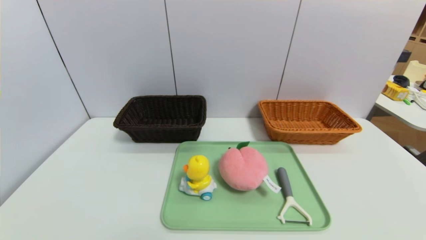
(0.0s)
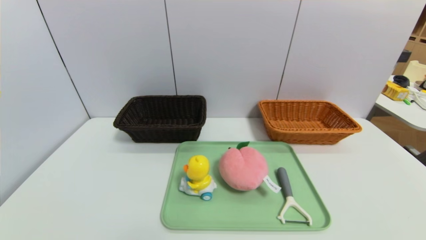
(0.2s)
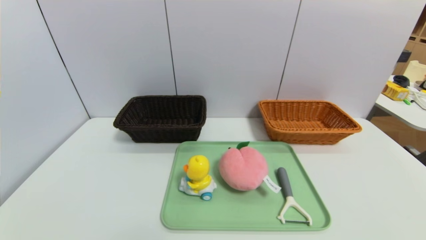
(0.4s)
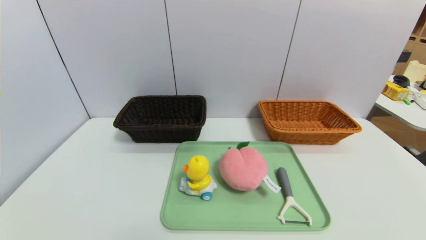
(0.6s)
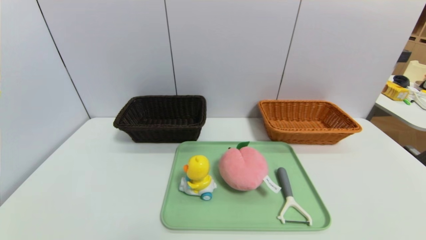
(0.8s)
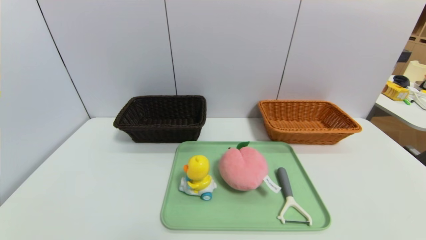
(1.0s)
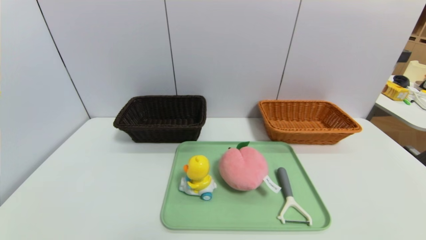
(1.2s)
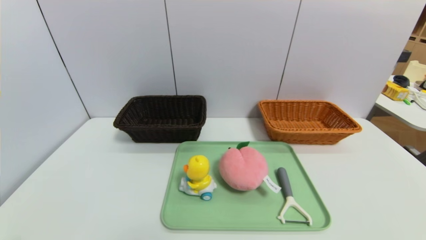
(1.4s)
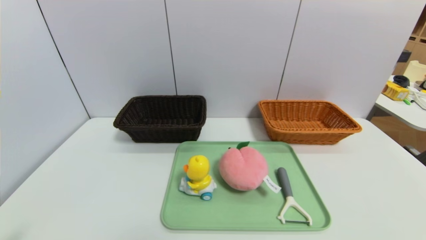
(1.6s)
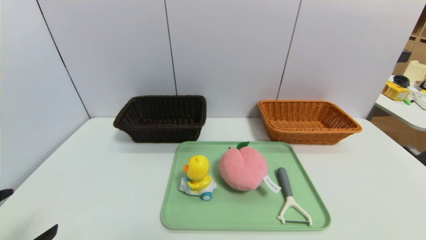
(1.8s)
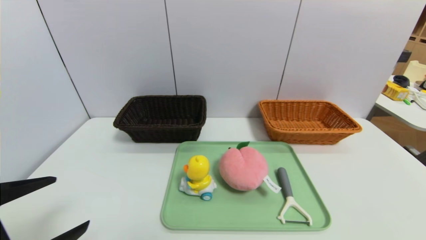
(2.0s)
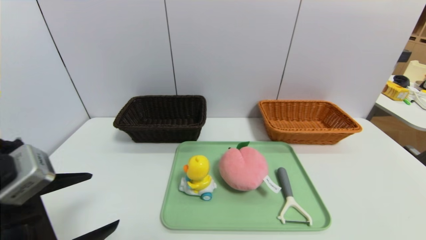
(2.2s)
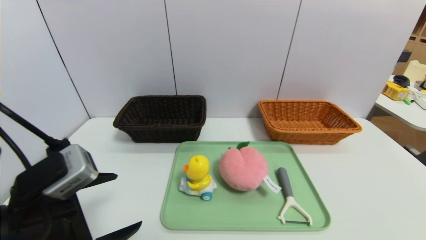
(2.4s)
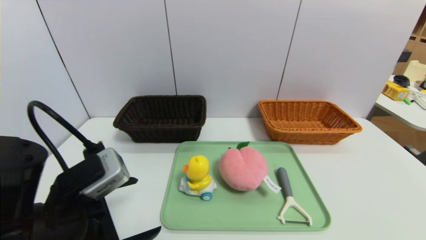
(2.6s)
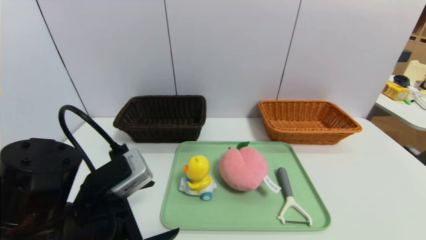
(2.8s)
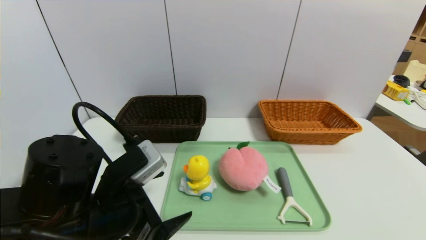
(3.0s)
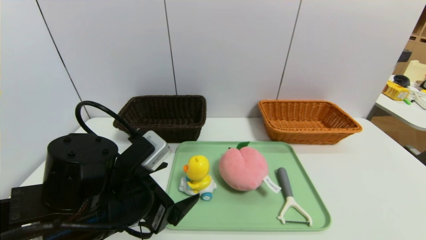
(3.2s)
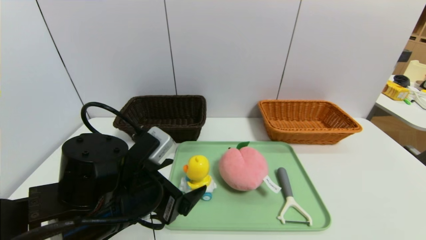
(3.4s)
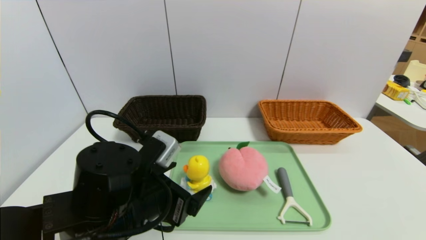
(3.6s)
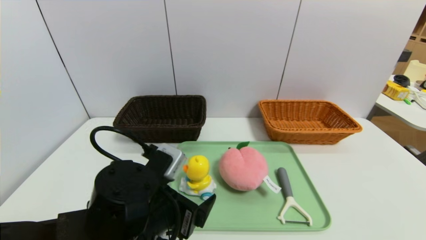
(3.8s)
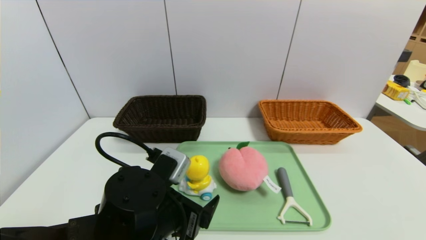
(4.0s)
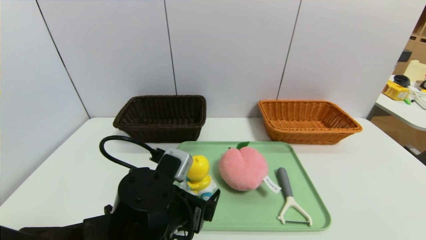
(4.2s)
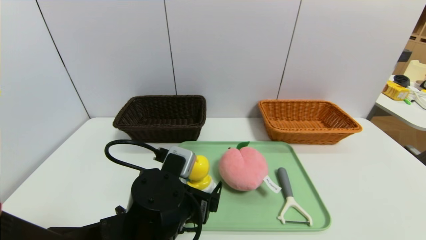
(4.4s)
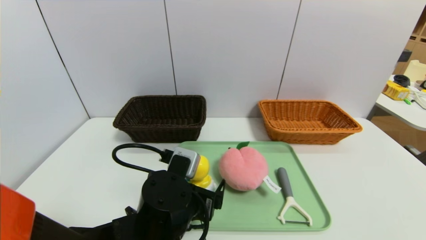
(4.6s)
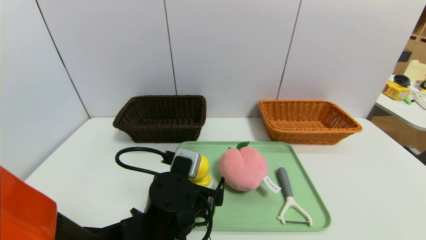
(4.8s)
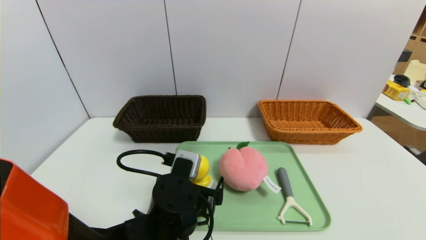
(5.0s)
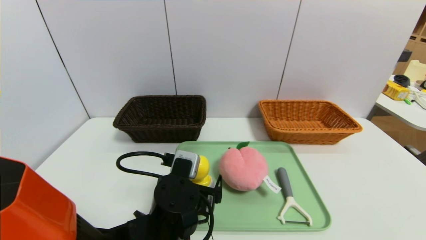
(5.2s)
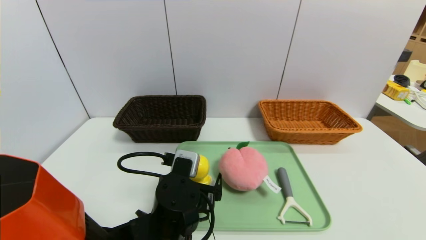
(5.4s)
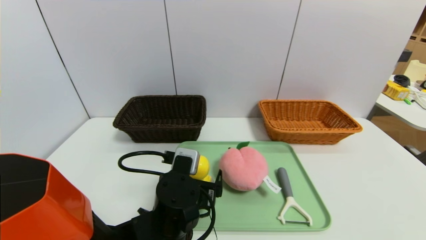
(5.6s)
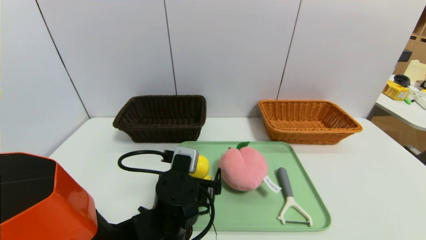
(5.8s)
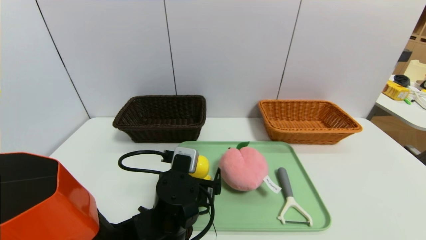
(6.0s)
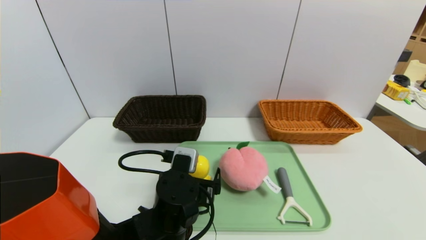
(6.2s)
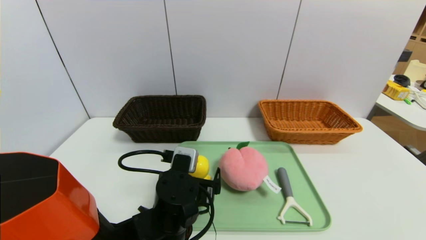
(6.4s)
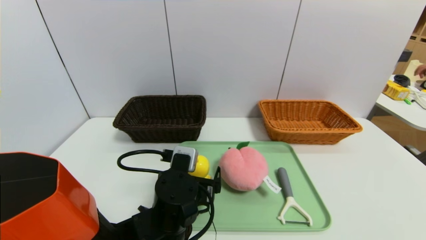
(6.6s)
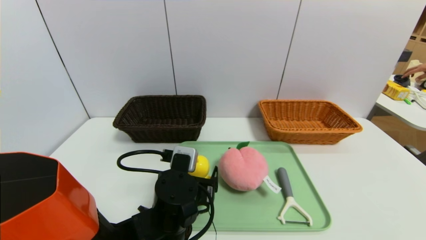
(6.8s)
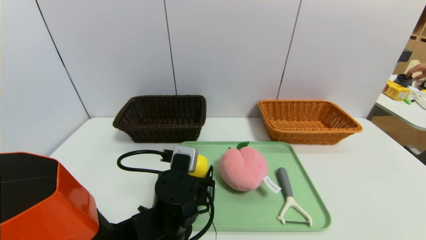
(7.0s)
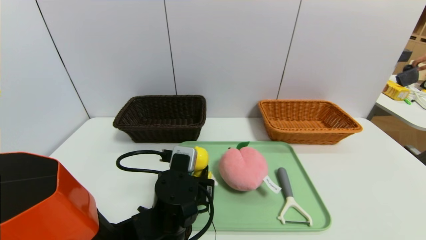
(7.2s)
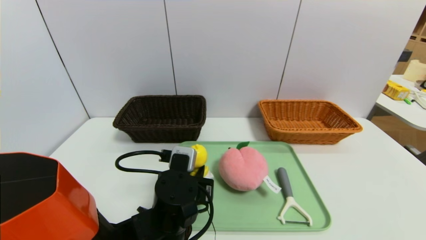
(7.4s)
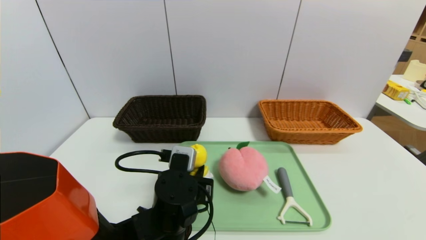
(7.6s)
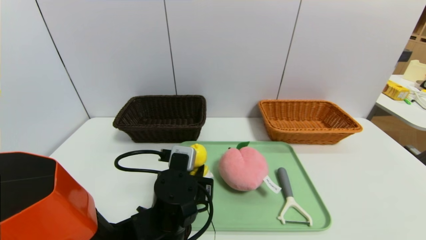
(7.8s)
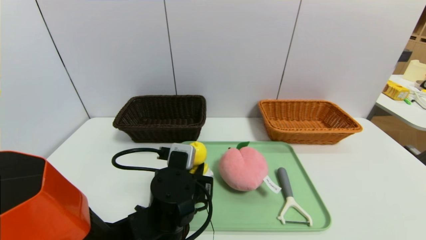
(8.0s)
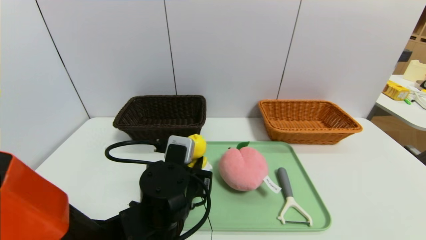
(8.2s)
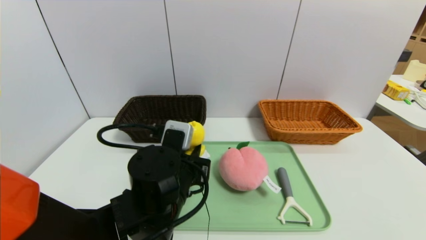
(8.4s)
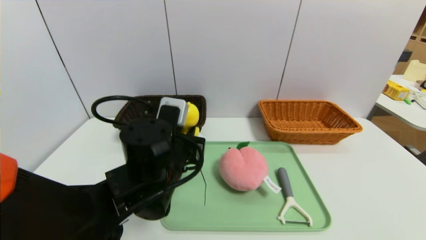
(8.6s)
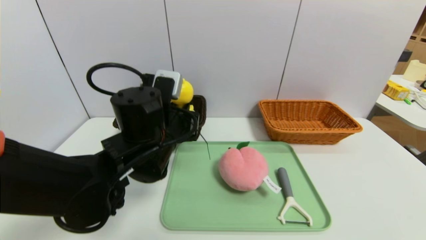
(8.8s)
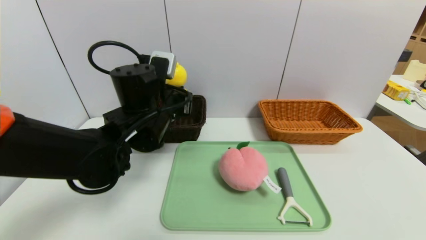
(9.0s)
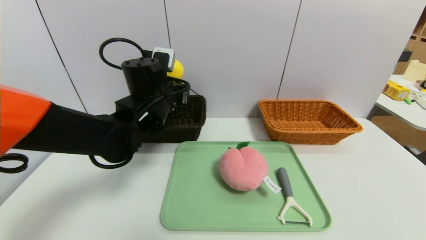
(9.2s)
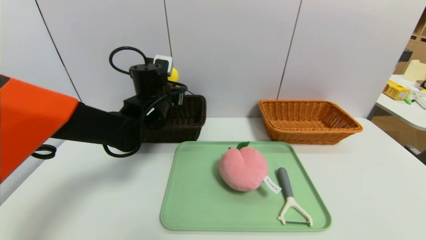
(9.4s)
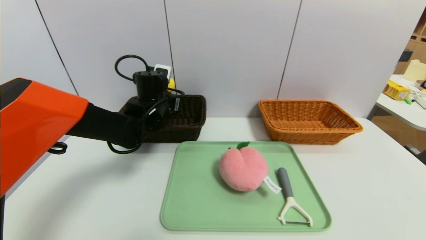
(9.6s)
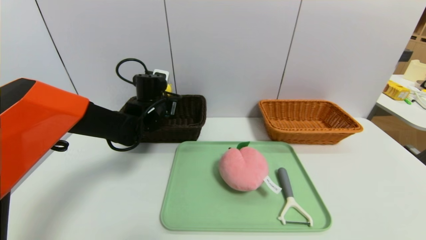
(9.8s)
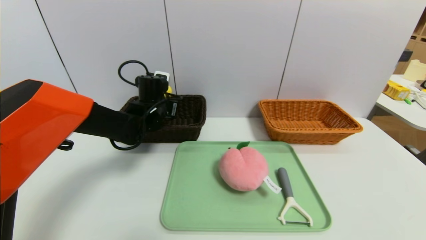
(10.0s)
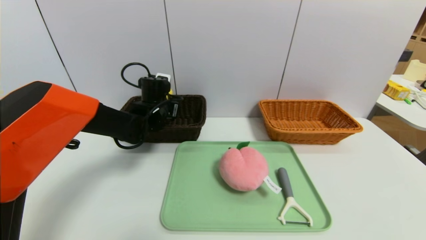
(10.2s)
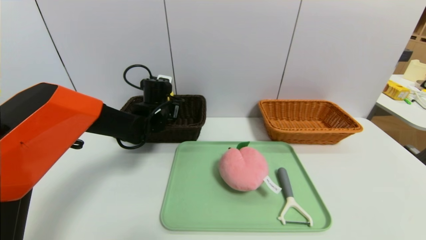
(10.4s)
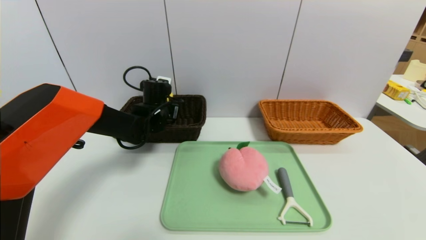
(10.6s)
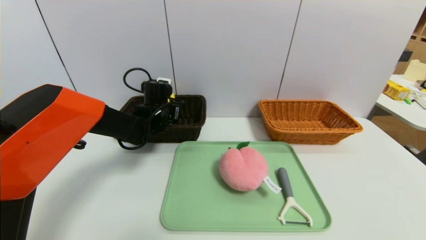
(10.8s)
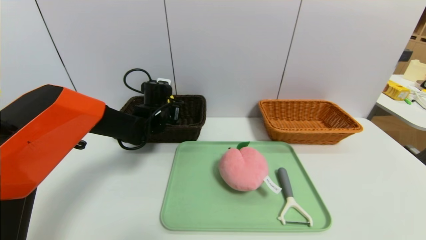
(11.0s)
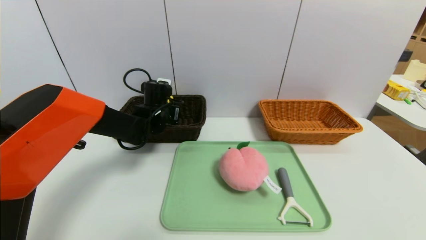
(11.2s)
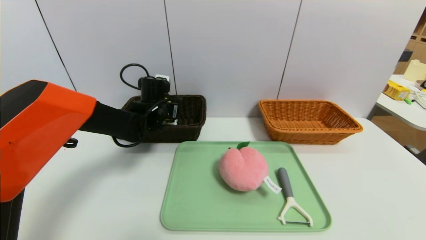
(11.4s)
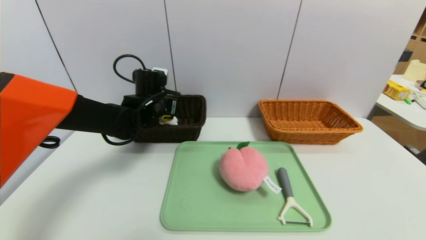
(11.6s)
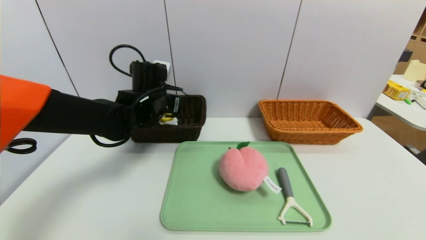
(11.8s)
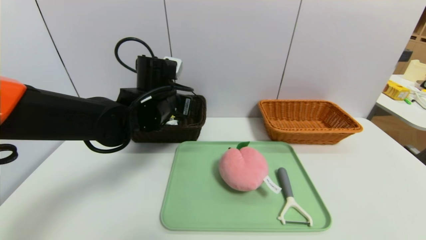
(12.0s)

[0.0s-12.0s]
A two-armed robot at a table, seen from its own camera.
Task of the whole recording: place the food in the right basket with the right gripper, and place the non food items in the left basket with the left gripper.
Step, 0.0s to 11.6s: Grasp the duck toys and put it in the left basket.
1.6s to 3.0s: The left gripper shifts roughly 20 cm to the right and forward.
3.0s to 4.4s: The left gripper travels to the right and downward by approximately 10 cm.
4.4s to 6.0s: There are only small adjustments of the grippers.
6.0s to 7.6s: The left gripper closes up.
7.6s to 9.0s: The left gripper travels upward and forward by approximately 15 cm.
9.0s to 10.4s: The left gripper is displaced forward and downward by roughly 15 cm.
10.4s to 12.0s: The left gripper goes about 10 cm backward and upward, and opens its fingers.

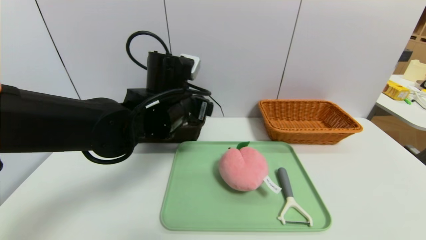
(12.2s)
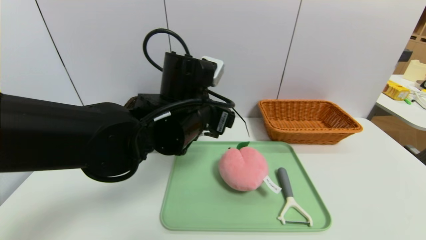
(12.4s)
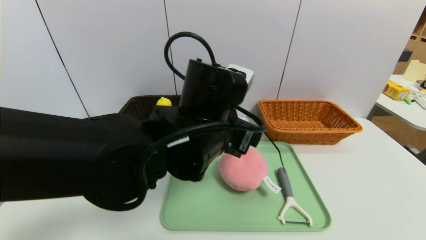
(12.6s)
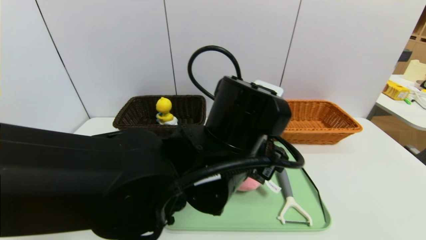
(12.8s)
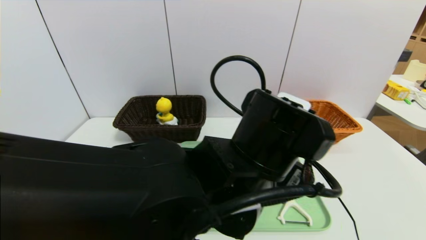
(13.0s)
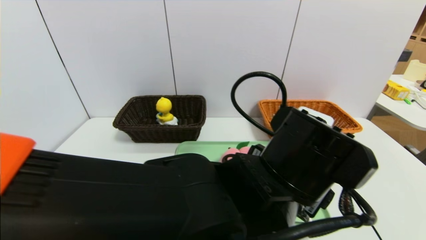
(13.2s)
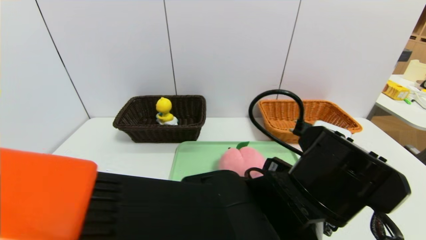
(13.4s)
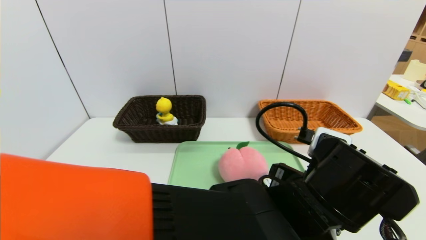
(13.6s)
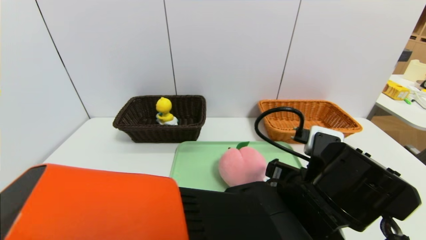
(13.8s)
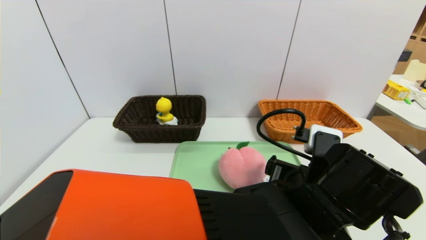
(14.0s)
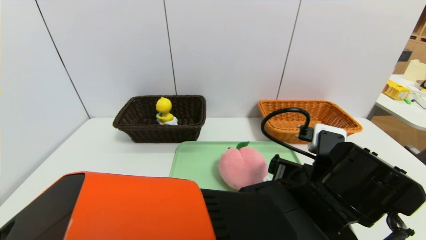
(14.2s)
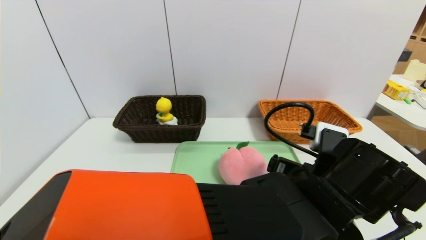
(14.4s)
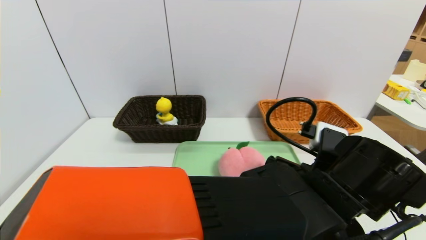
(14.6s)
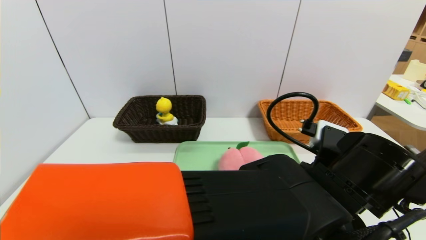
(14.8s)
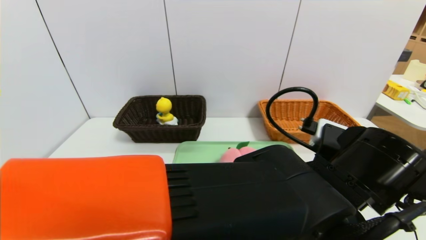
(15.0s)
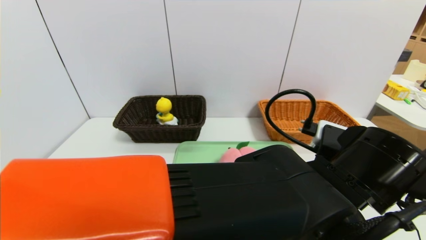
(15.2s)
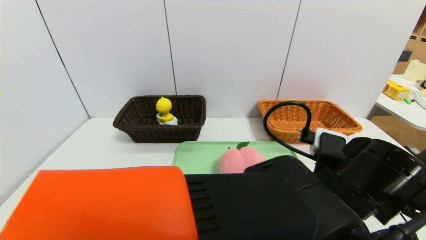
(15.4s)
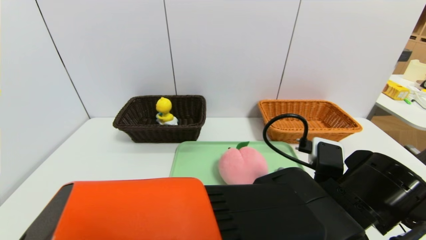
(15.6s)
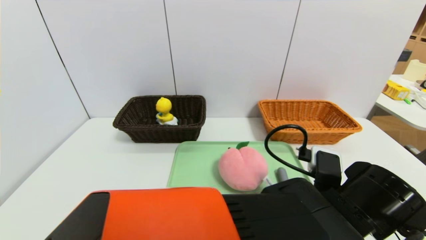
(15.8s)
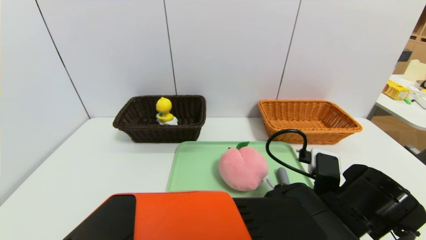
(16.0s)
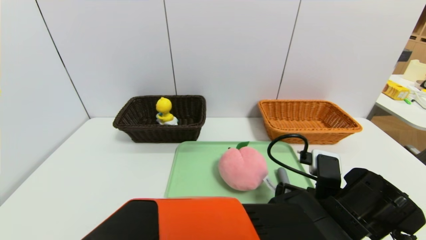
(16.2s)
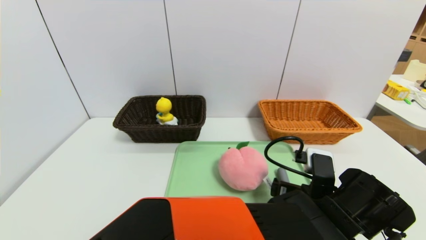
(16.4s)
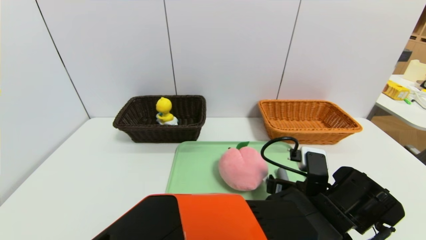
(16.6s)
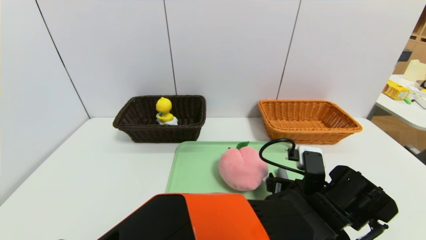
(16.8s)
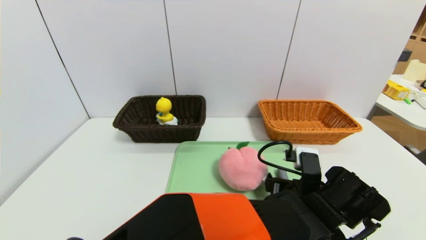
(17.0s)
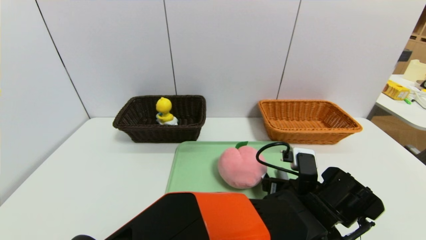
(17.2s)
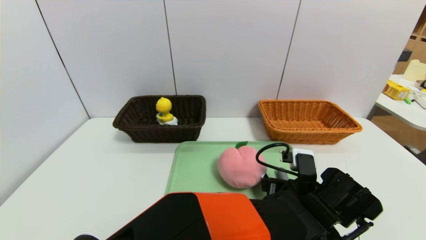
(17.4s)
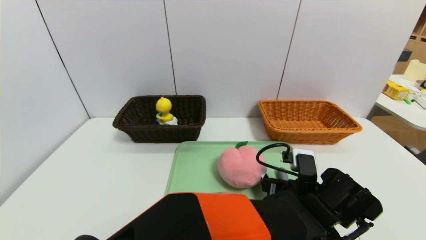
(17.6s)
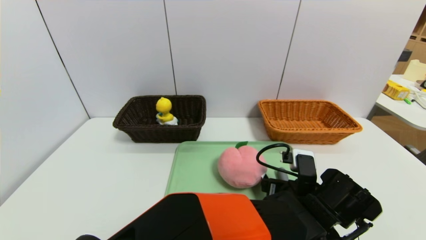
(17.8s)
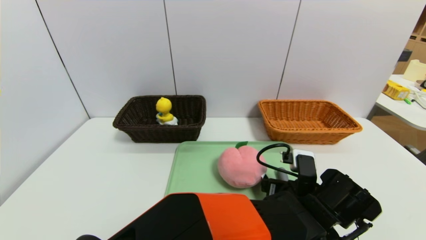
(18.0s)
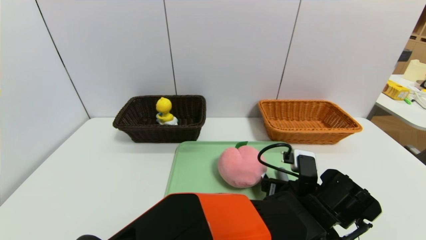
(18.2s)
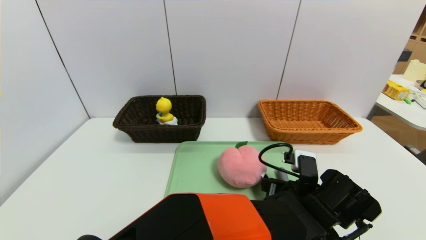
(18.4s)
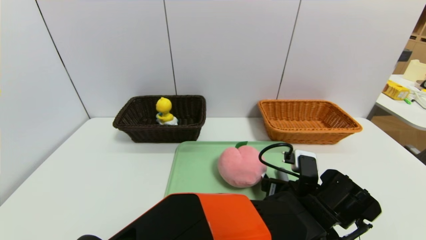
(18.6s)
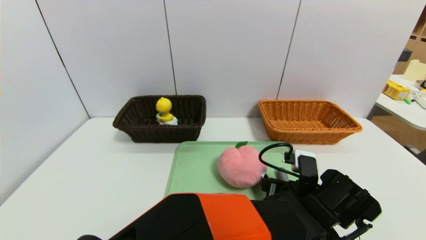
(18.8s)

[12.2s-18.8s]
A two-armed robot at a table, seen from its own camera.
Task of the whole recording: place the food in the right basket with the right gripper, and place the non food items in the left basket with the left gripper.
12.2s to 13.8s: The left gripper shifts some 25 cm to the right and backward.
13.8s to 15.4s: The grippers move only a little.
15.4s to 17.2s: The left gripper goes approximately 10 cm downward.
17.2s to 18.8s: Neither gripper changes place.
